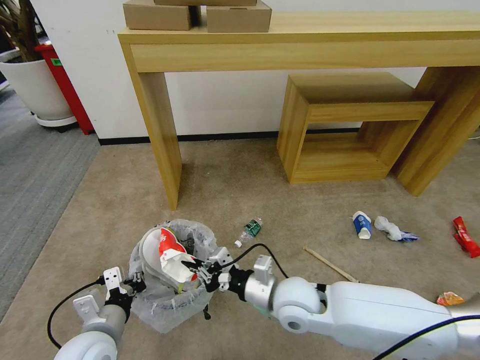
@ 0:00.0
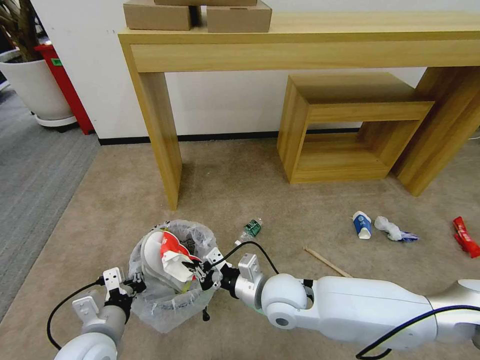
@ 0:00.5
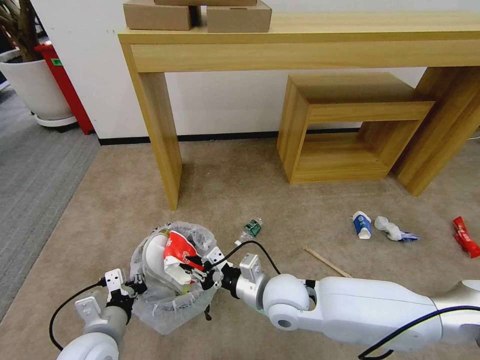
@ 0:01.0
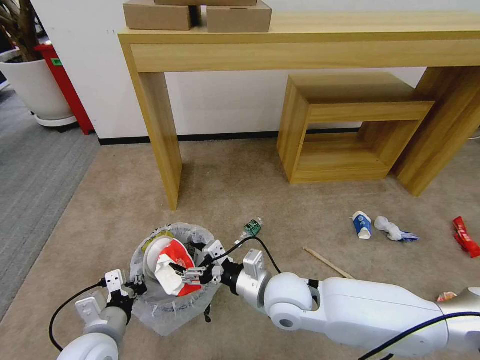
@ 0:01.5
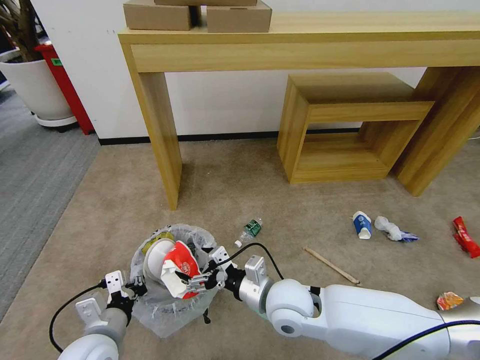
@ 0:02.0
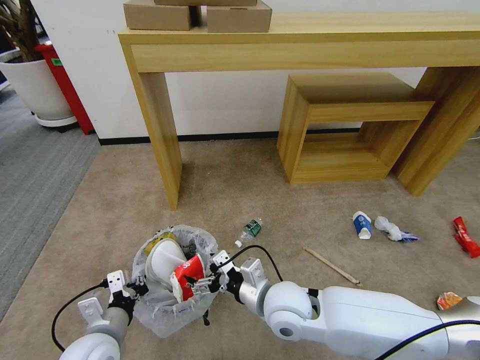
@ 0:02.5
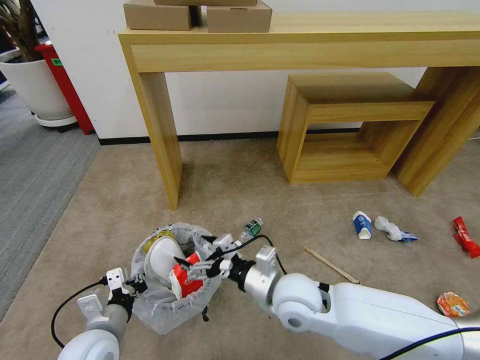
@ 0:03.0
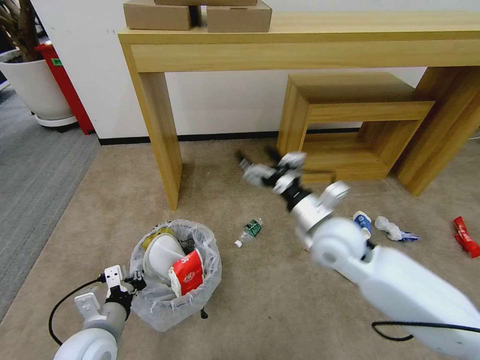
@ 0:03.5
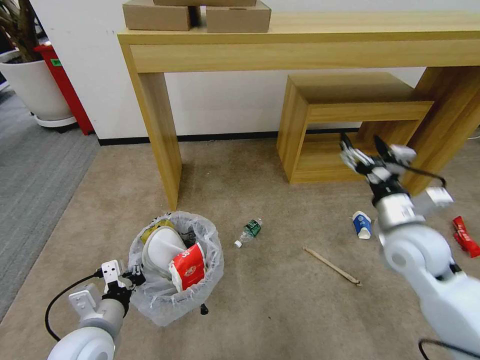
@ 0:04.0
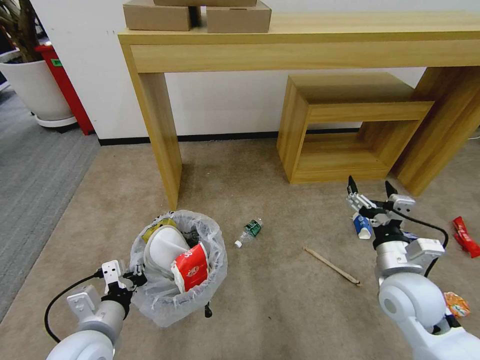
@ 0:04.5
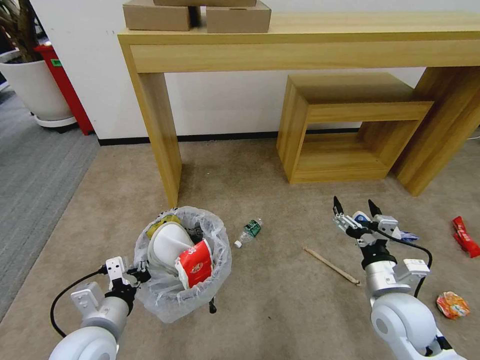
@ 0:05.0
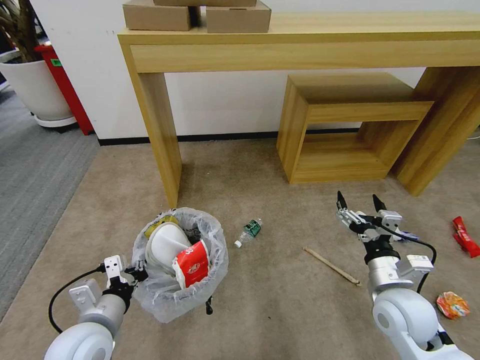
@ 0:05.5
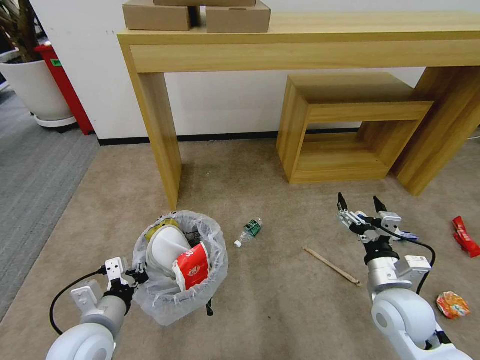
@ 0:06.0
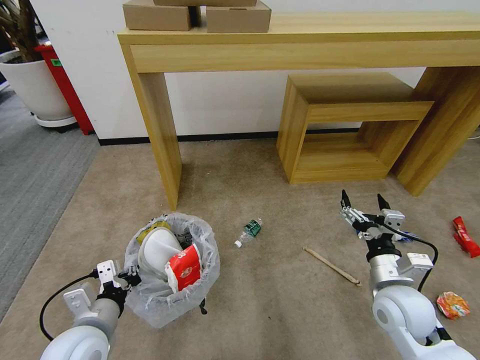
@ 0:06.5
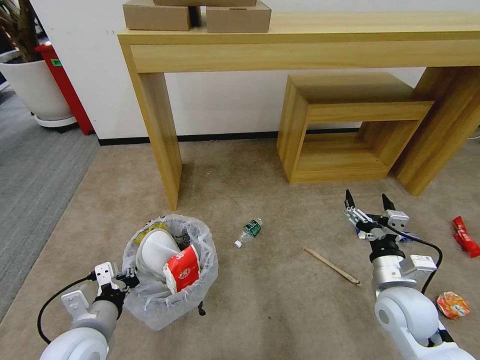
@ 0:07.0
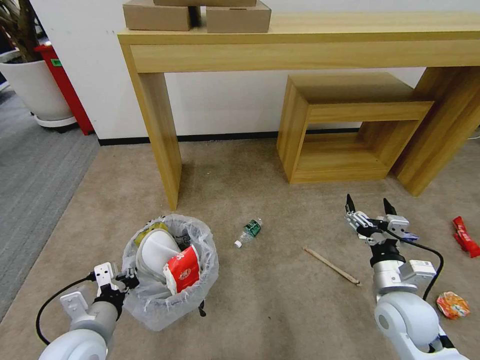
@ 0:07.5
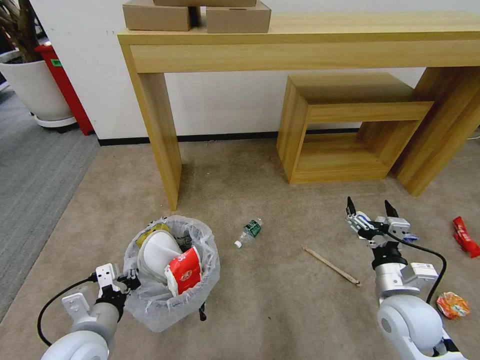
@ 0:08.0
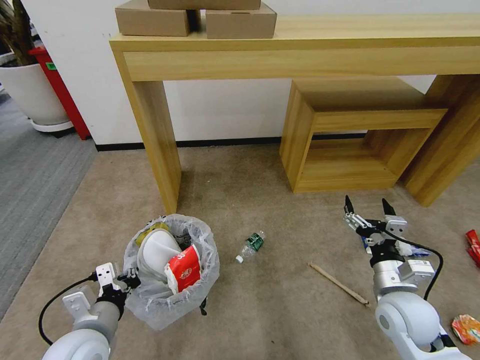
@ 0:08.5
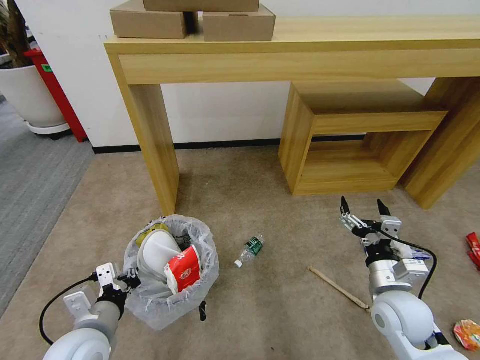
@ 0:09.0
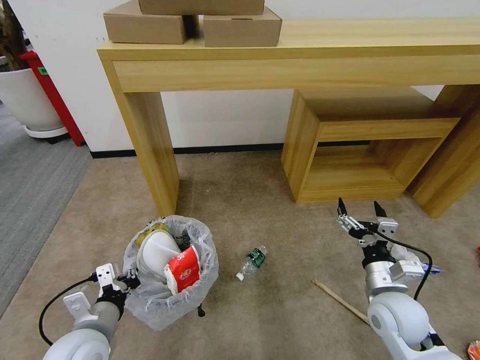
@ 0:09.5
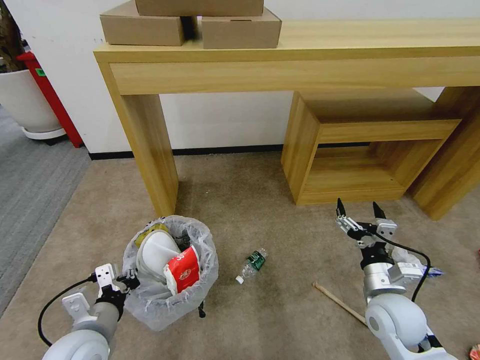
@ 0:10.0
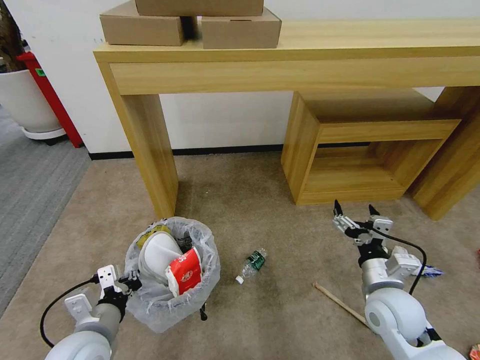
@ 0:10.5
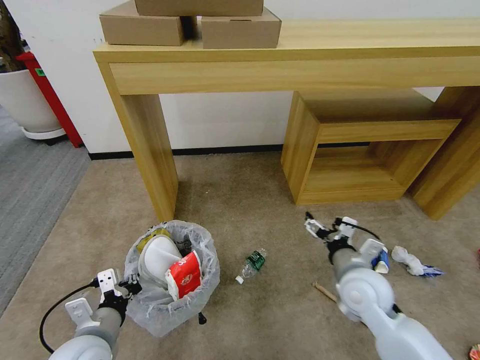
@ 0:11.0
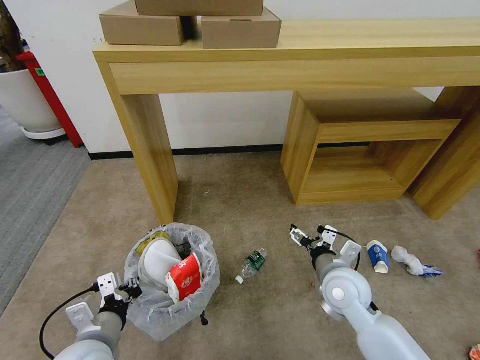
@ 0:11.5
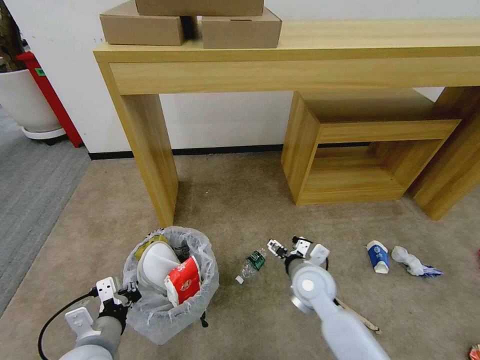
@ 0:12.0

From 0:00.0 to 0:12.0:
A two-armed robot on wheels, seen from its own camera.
Task of the whole recording: Pick up the trash bin and place the garbage on the floor into it.
From 0:00.0 to 0:02.0: The right gripper opens up.
From 0:02.0 to 0:04.0: The right gripper goes some 25 cm to the right and upward.
From 0:04.0 to 0:06.0: The right gripper travels downward and backward by some 10 cm.
From 0:06.0 to 0:08.0: The grippers make only small movements.
From 0:10.0 to 0:12.0: The right gripper travels to the left and forward by approximately 15 cm.

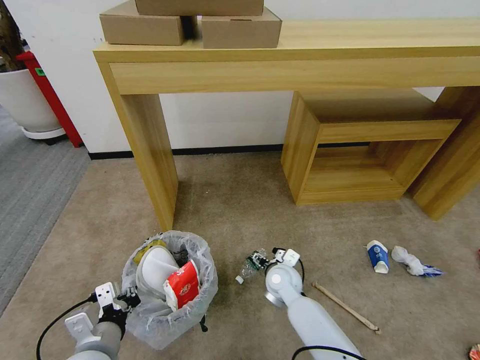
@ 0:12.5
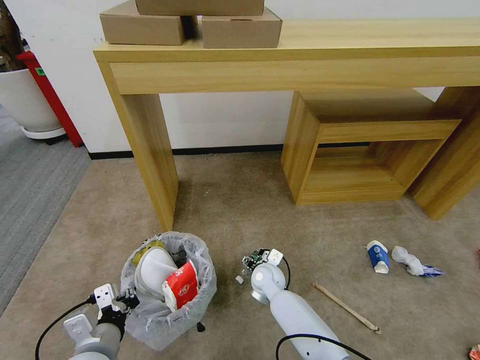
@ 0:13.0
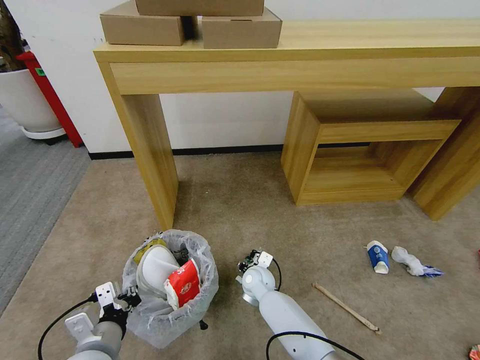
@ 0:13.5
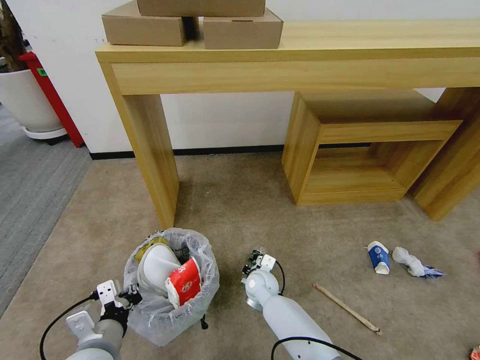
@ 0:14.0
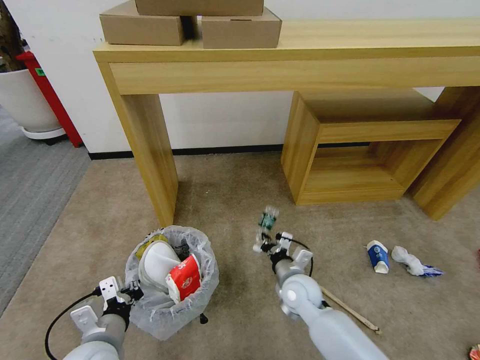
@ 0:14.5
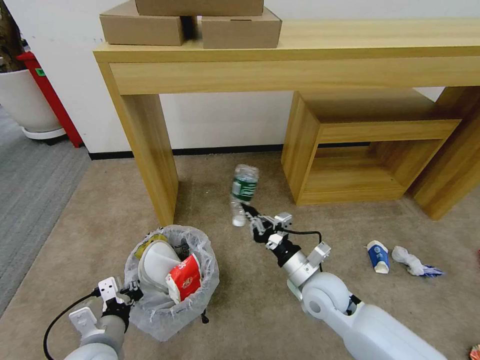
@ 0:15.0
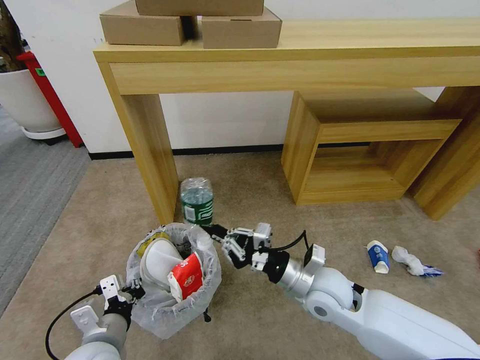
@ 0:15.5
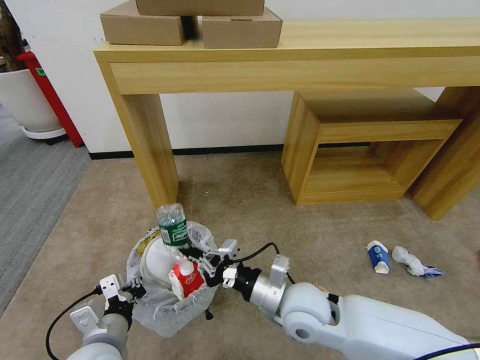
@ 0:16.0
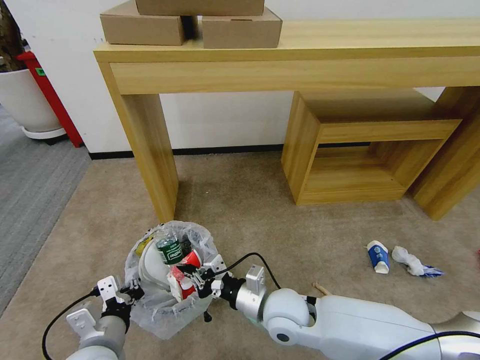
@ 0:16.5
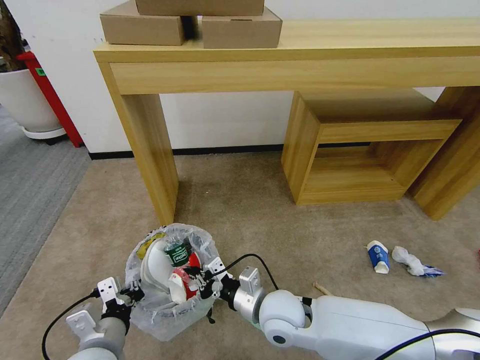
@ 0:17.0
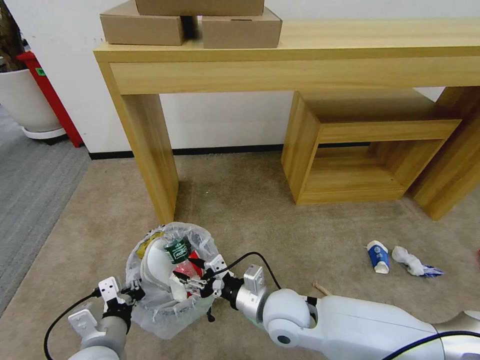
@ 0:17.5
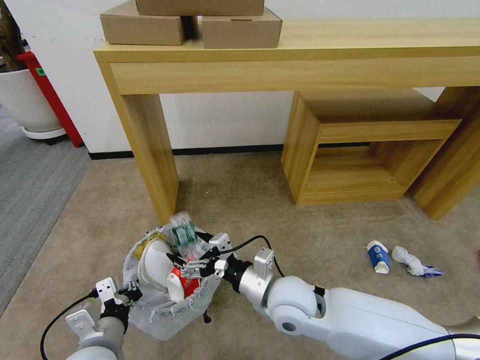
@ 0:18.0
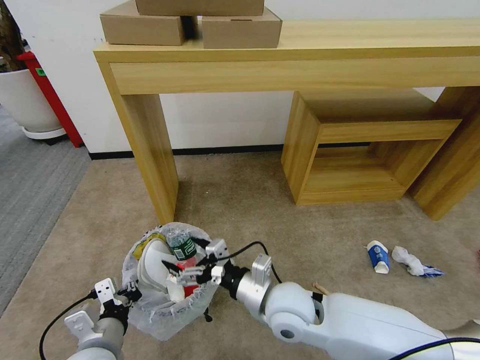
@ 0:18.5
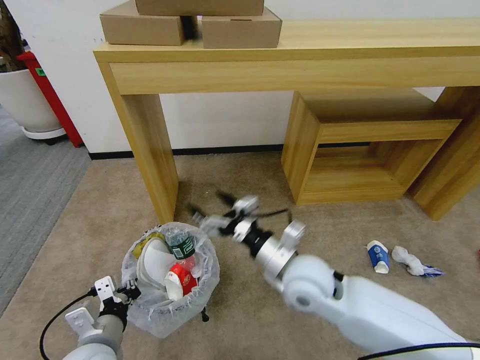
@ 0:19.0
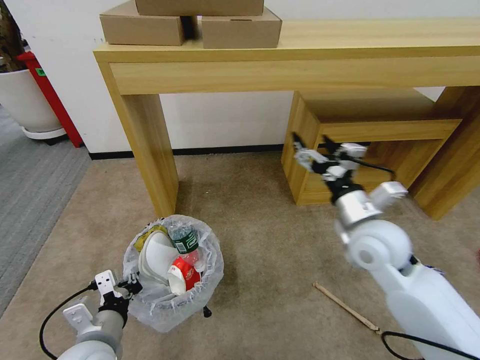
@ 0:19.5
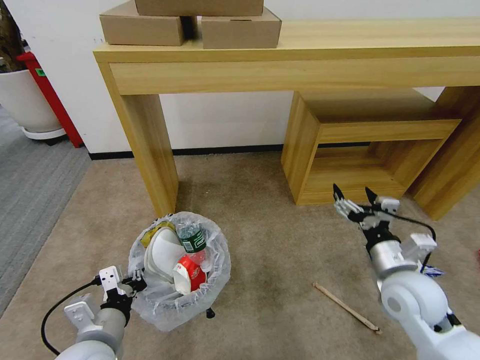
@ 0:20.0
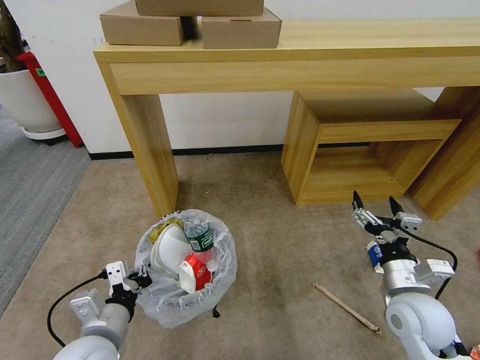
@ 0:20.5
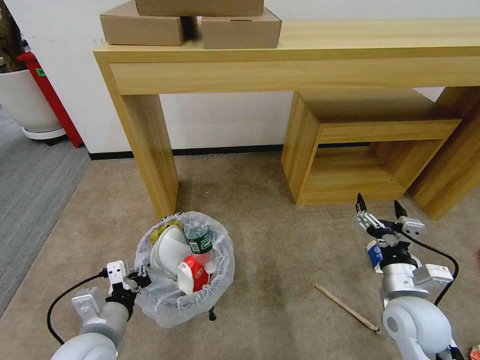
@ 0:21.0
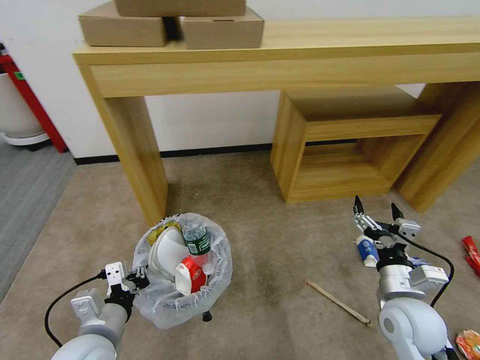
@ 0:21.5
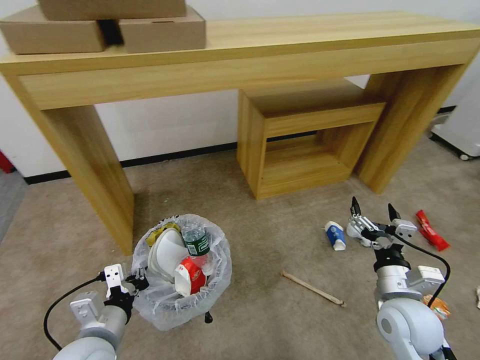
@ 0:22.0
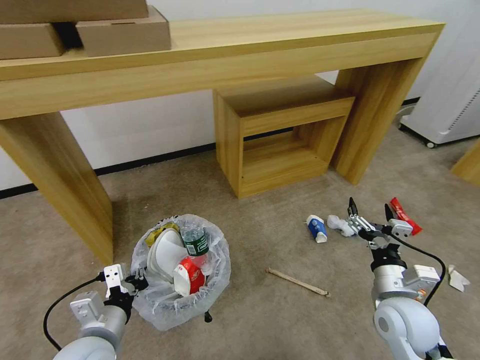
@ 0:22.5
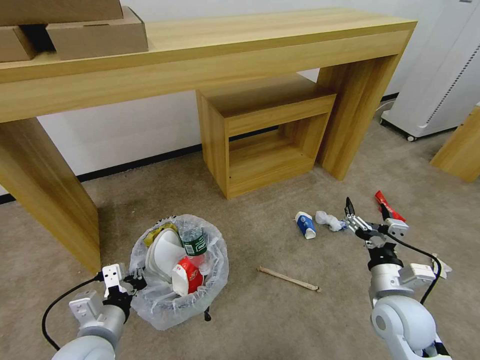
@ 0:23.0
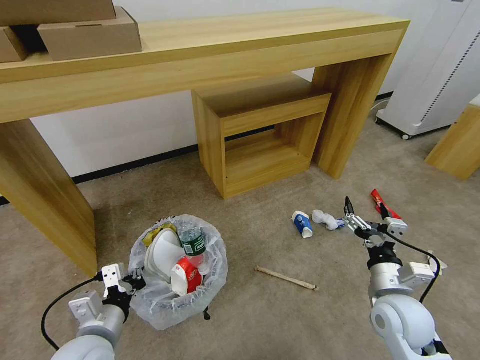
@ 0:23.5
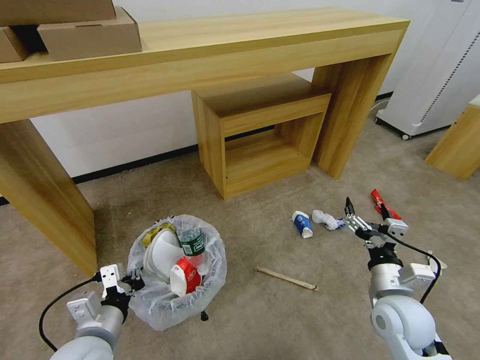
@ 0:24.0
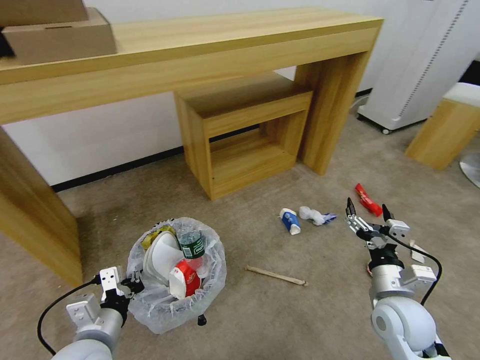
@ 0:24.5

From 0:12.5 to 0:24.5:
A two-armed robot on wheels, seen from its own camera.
Task of the whole recording: Pick up the trash bin and place the garbage on the floor into it.
From 0:12.5 to 0:14.5: The right gripper ends up roughly 5 cm from where it was, and closes its fingers.
From 0:14.5 to 0:16.5: The right gripper heads upward, backward and to the left, covering some 10 cm.
From 0:16.5 to 0:18.5: The right gripper opens up.
From 0:18.5 to 0:20.5: The right gripper heads to the right, covering roughly 25 cm.

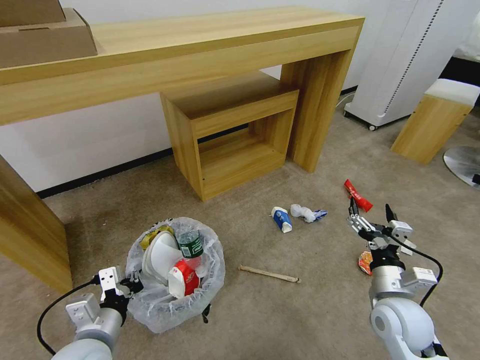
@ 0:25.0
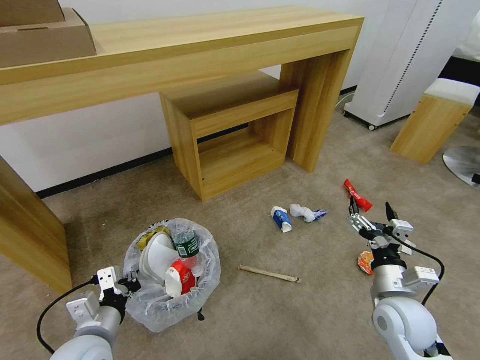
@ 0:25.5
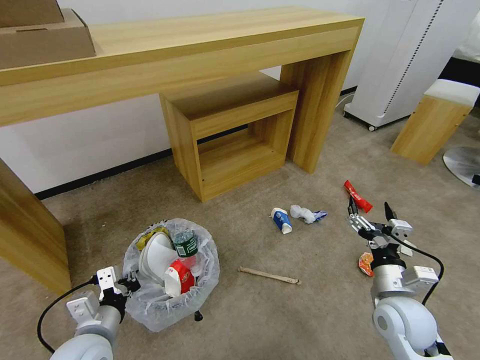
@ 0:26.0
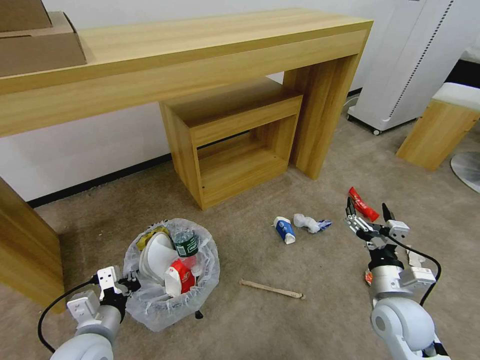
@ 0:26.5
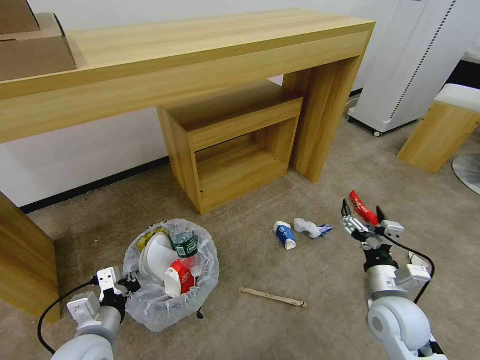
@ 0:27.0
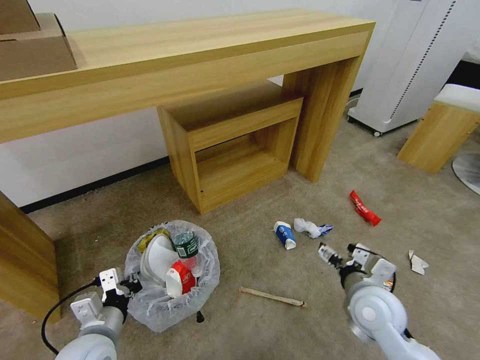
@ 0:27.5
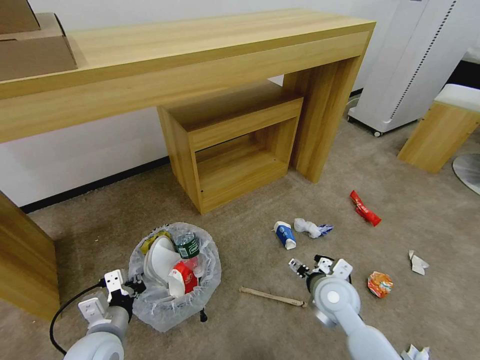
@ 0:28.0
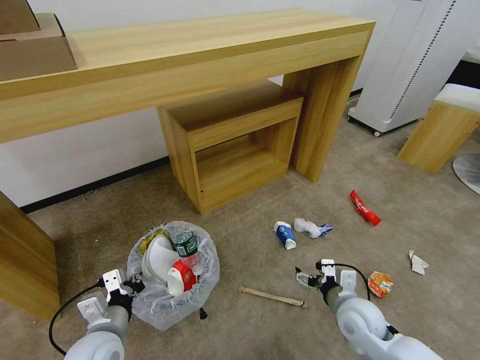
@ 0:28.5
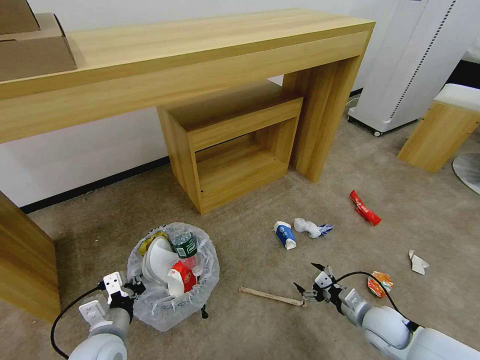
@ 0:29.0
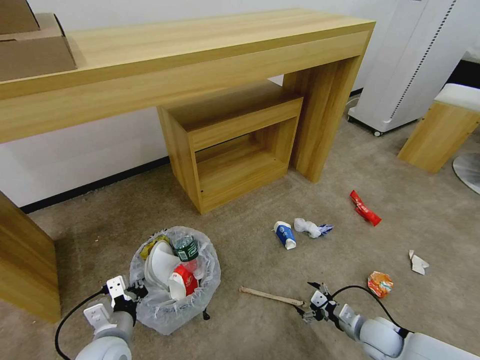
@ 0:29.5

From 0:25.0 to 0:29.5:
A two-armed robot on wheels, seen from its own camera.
Task of the whole recording: Pick up the trash bin and place the garbage on the floor into it.
From 0:27.0 to 0:29.5: The right gripper shifts some 15 cm downward.
